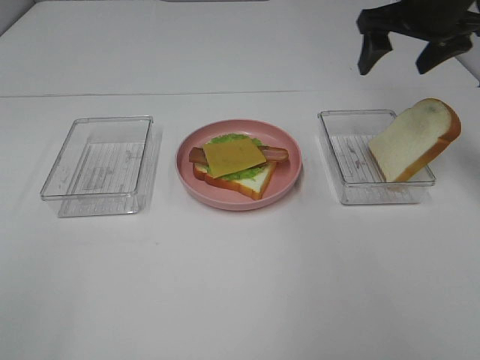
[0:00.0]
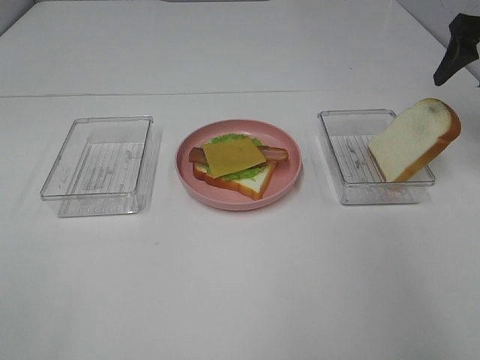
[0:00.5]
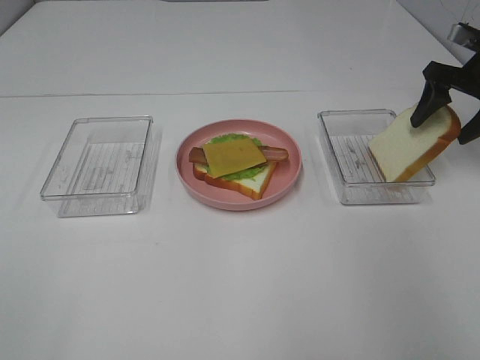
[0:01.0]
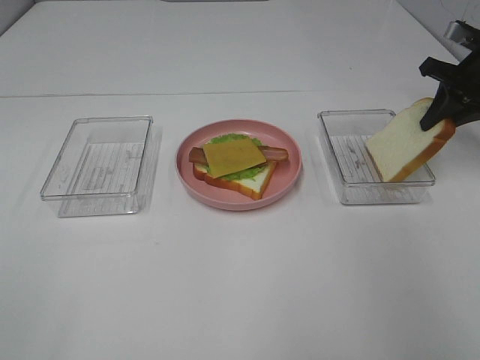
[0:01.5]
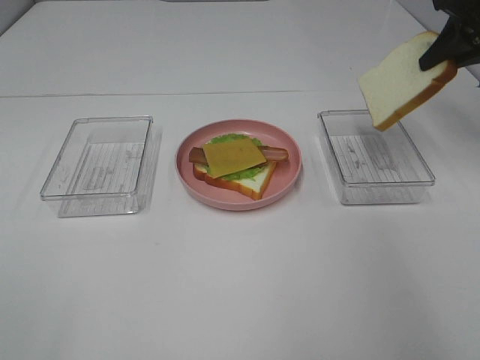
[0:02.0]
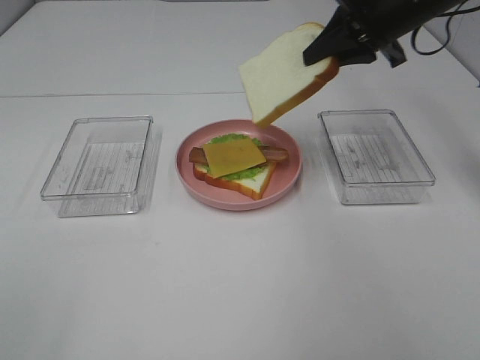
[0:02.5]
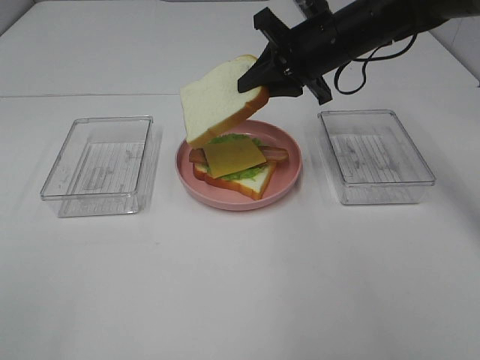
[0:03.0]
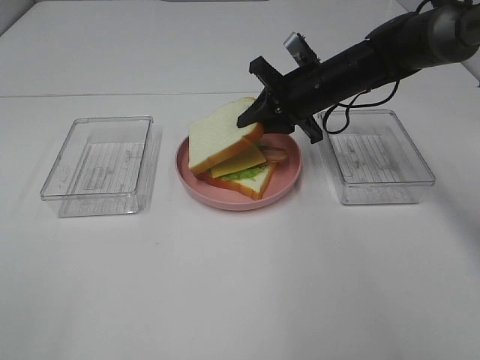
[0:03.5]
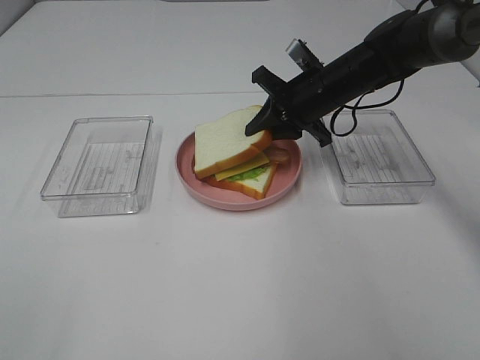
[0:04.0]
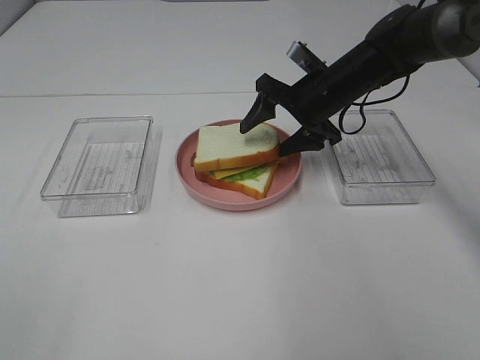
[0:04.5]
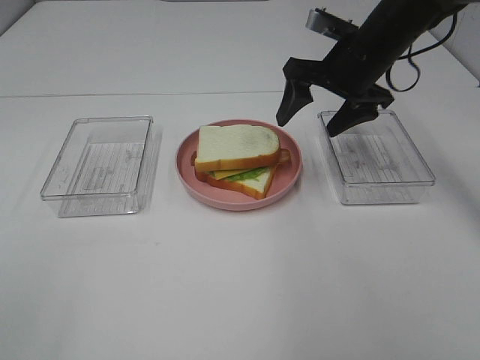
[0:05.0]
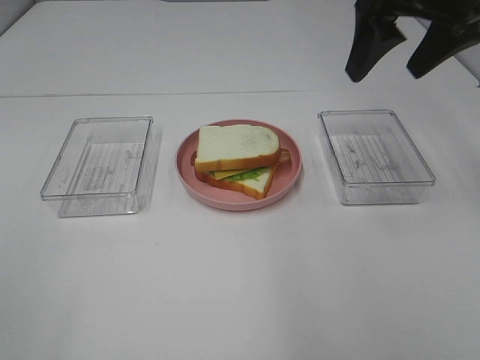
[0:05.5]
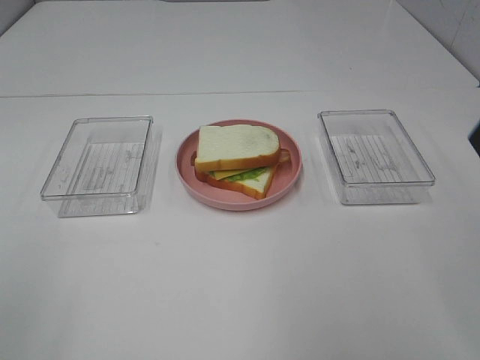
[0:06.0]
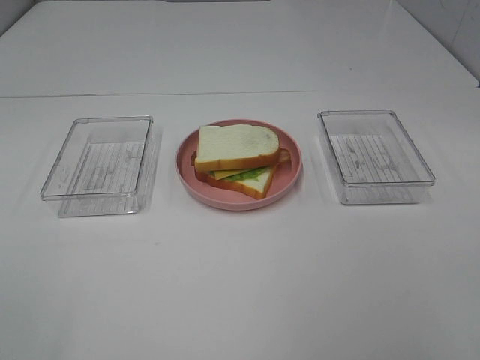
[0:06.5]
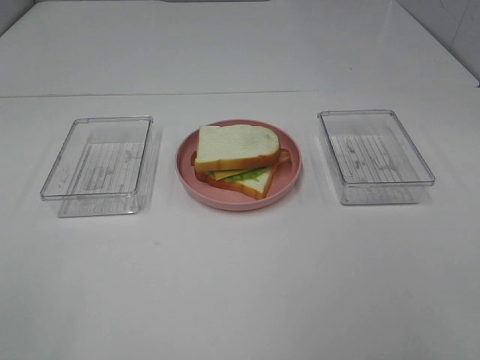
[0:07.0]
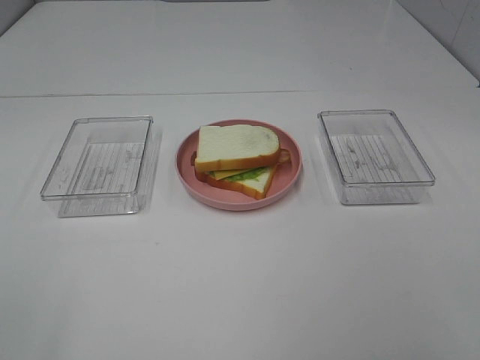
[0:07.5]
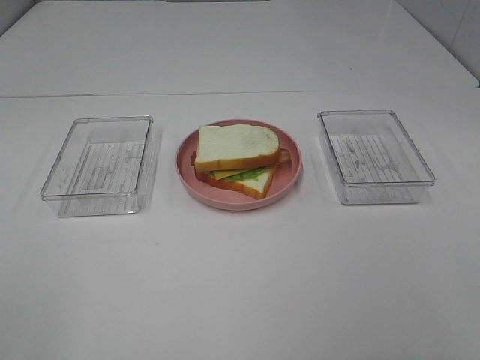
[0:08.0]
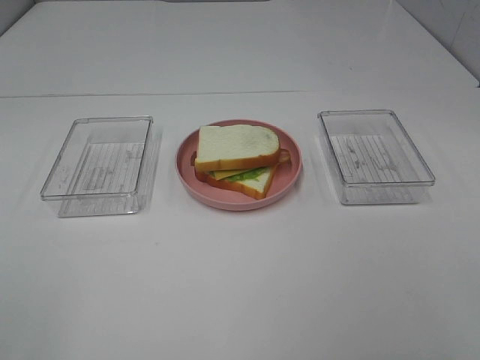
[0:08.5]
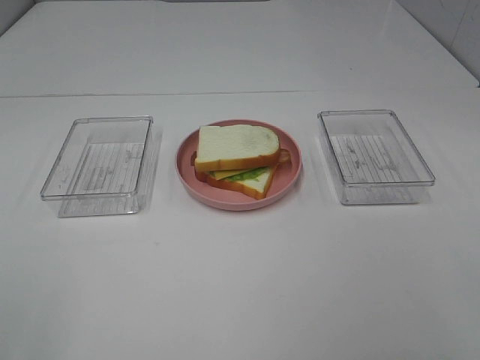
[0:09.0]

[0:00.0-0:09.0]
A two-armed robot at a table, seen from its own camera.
Task of the whole recording: Make sandwiches.
Step, 0:01.5 to 0:04.5: Right hand:place the bread slice on the cheese slice.
0:00.0 to 0:02.0: The right gripper is displaced to the right by about 10 cm, and closes up.
0:02.0 to 0:04.5: The right gripper moves to the left and downward, approximately 25 cm, and opens.
0:04.5 to 0:07.0: The right gripper goes about 40 cm backward.

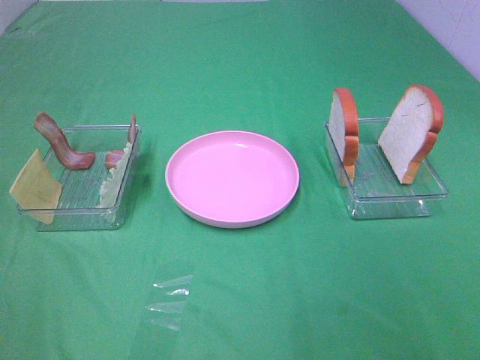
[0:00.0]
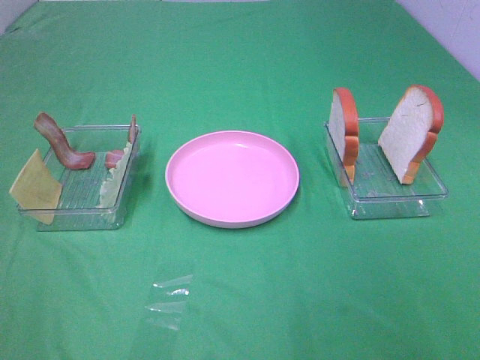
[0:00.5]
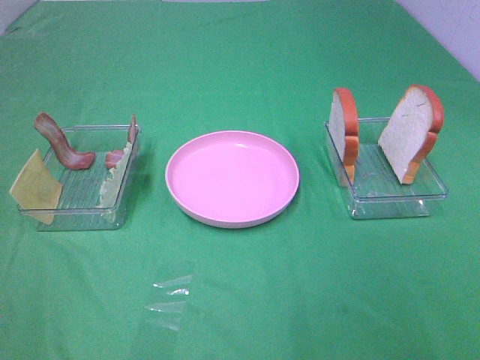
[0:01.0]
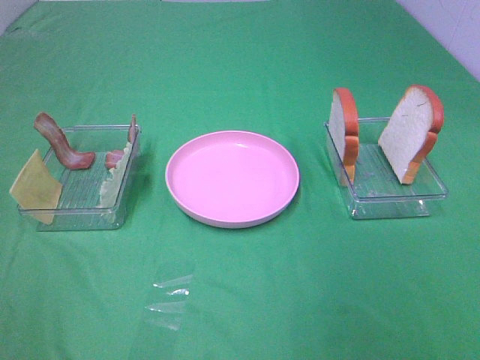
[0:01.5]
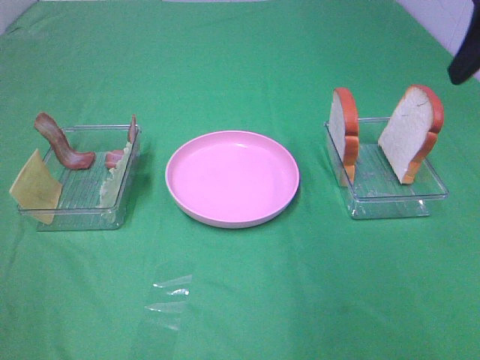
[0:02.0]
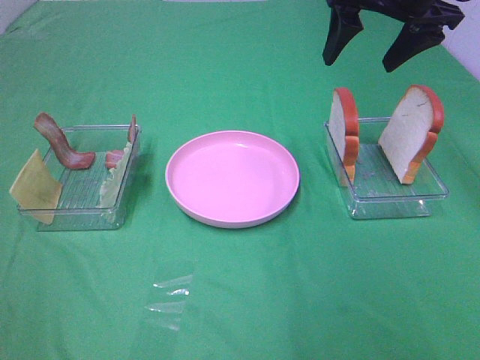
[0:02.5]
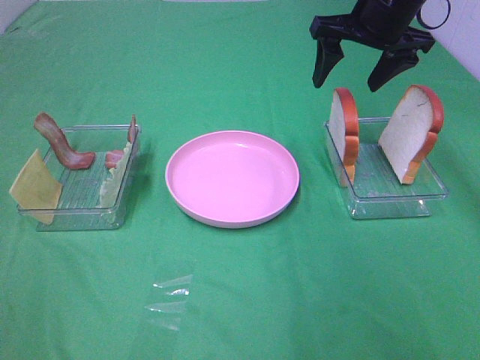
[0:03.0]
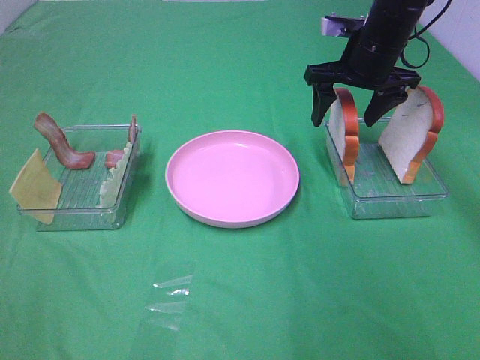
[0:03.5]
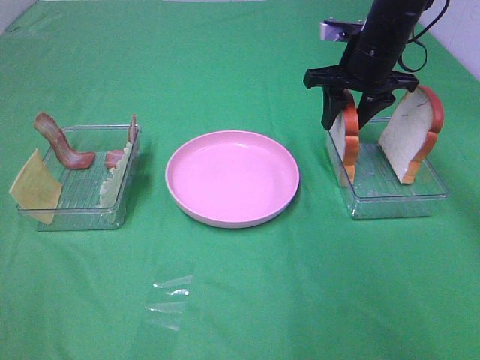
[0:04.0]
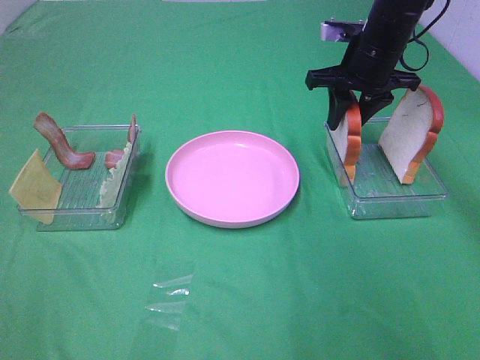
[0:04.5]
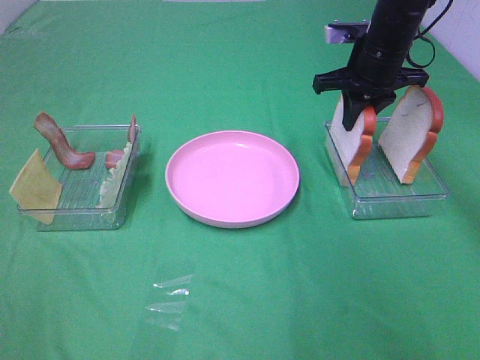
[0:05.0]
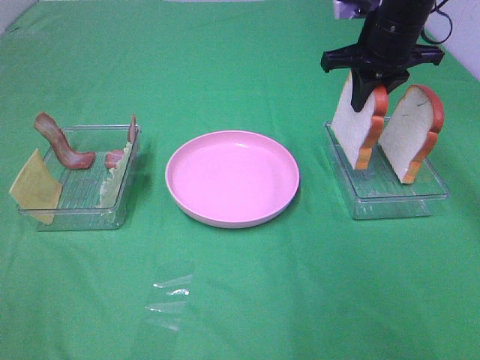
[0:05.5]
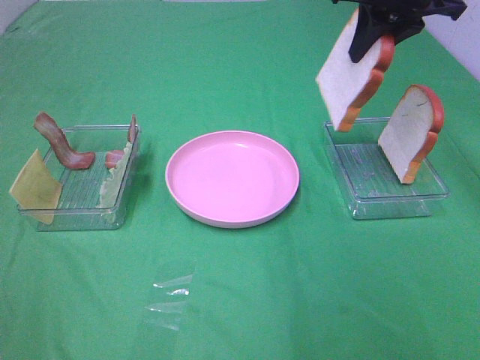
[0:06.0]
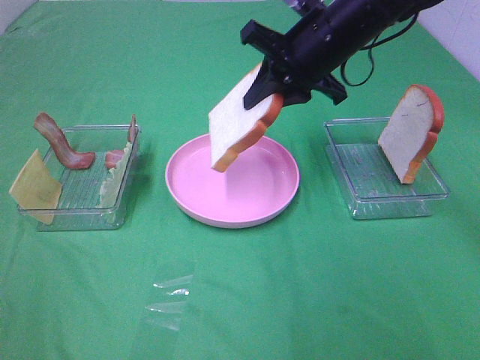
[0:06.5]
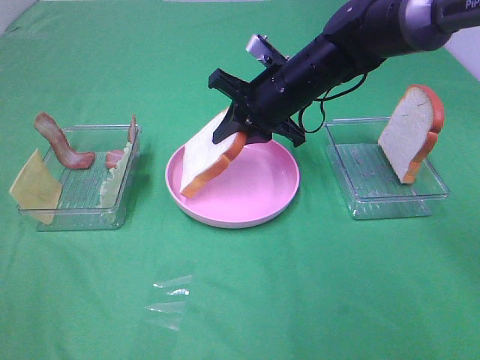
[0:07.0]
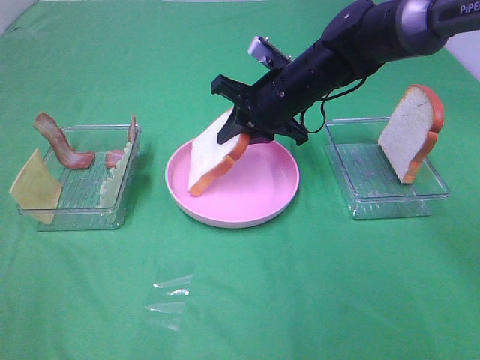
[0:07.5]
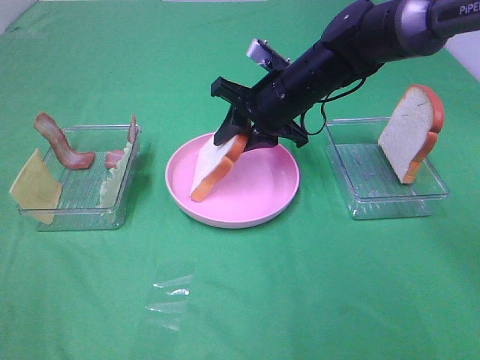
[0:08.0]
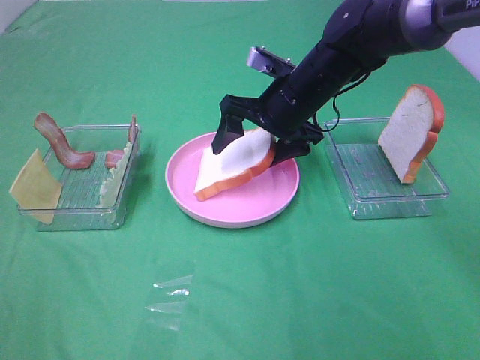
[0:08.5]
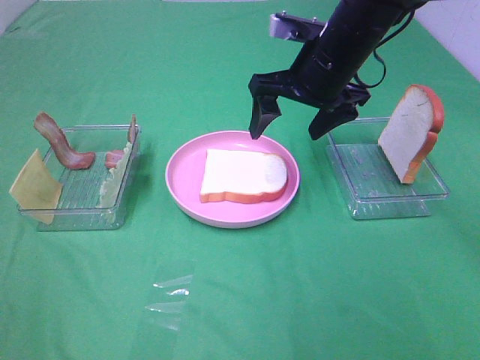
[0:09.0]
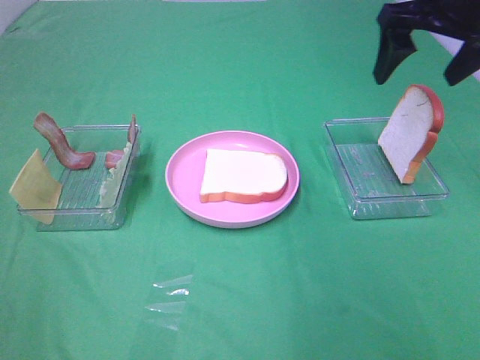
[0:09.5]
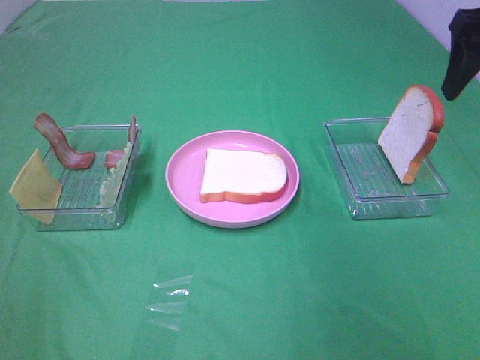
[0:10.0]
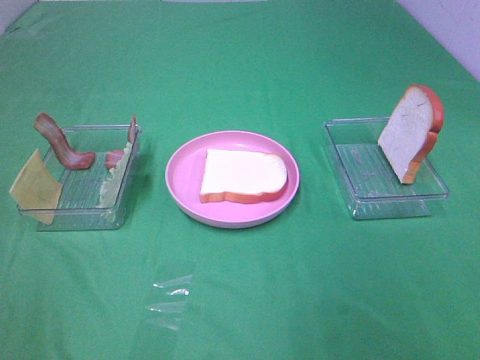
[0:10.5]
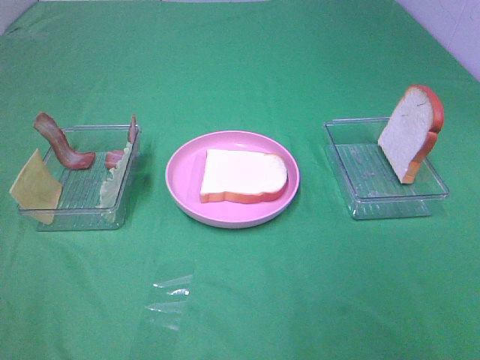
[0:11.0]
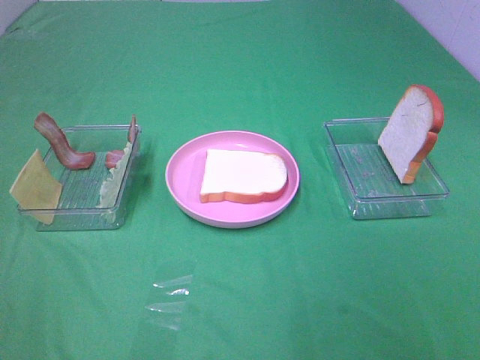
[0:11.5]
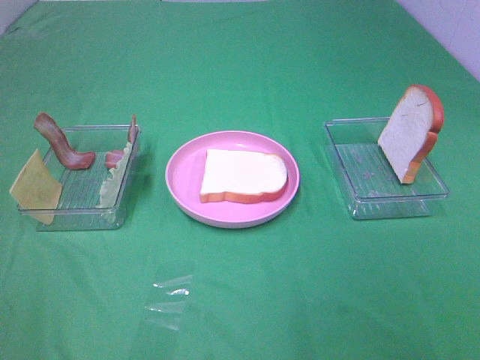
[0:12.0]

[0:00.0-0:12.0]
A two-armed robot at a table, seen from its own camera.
Task of the whole recording: Make sandwiches.
Step, 0:00.0 to 0:05.0: Right hand:grab the bread slice.
Step, 0:05.5 to 0:09.0: Right hand:place the bread slice on the plate.
0:00.0 to 0:02.0: The right gripper travels forward by some 30 cm.
0:02.0 to 0:04.0: The right gripper goes about 25 cm forward, downward and to the left, and closes up.
0:04.0 to 0:06.0: The right gripper travels upward and backward by approximately 15 cm, and closes its fingers.
0:06.0 to 0:08.0: The right gripper shifts some 20 cm downward and to the left.
0:08.0 to 0:10.0: The right gripper shifts some 30 cm to the right, upward and backward, and opens.
0:10.0 to 0:12.0: The right gripper shifts some 35 cm backward.

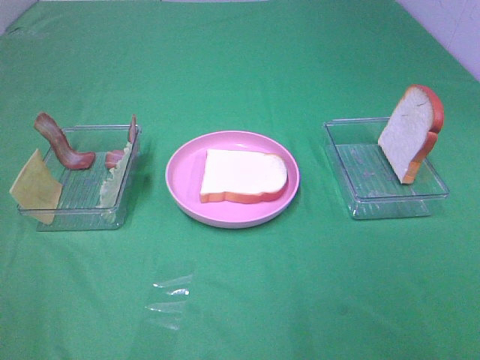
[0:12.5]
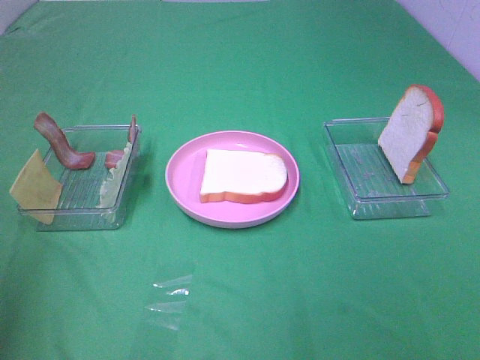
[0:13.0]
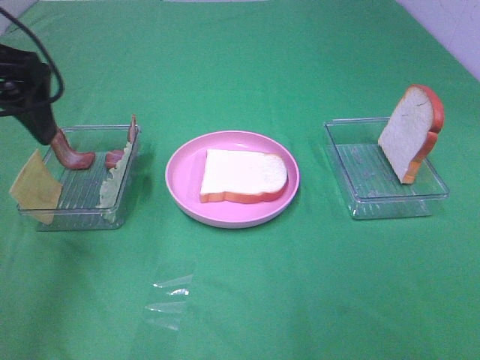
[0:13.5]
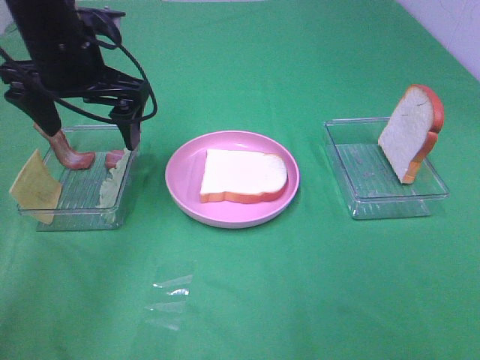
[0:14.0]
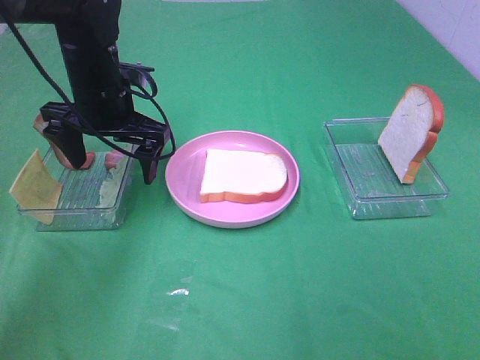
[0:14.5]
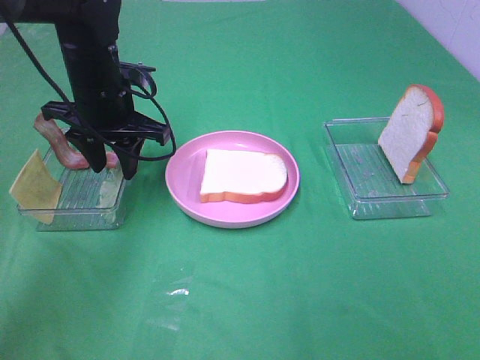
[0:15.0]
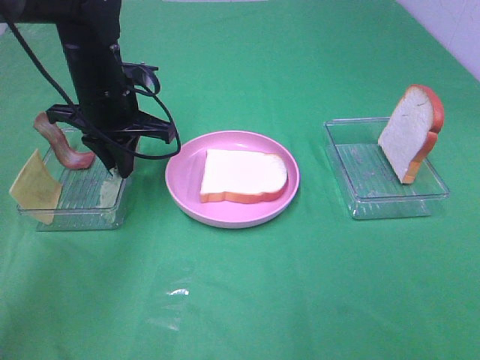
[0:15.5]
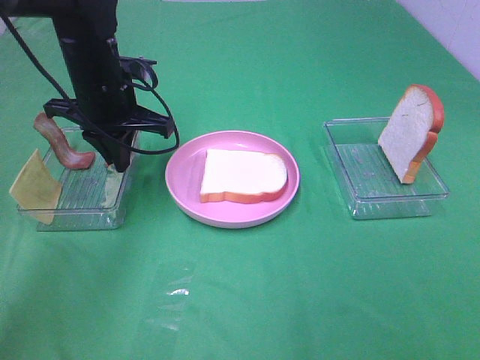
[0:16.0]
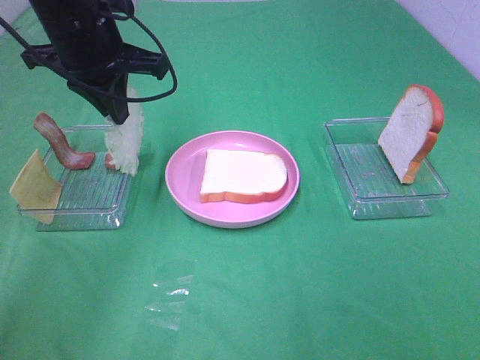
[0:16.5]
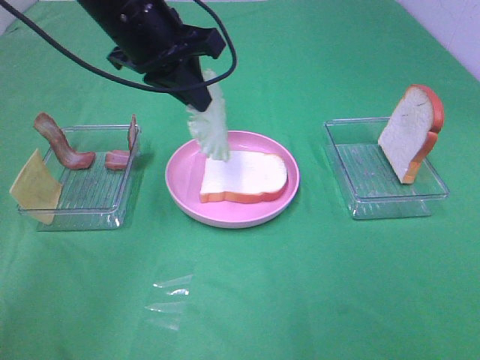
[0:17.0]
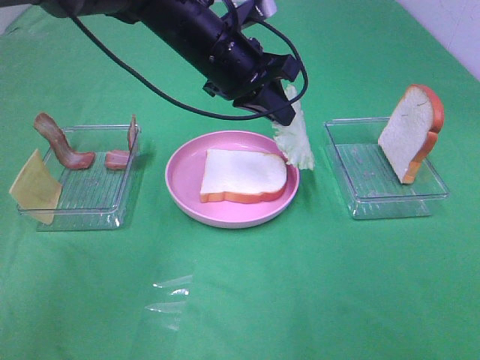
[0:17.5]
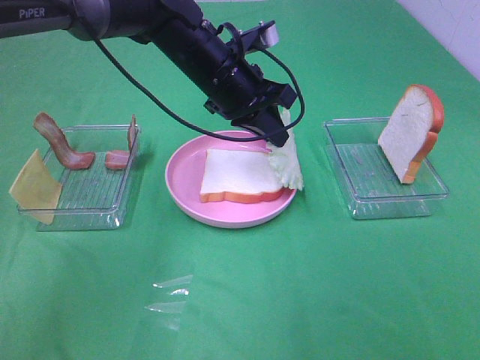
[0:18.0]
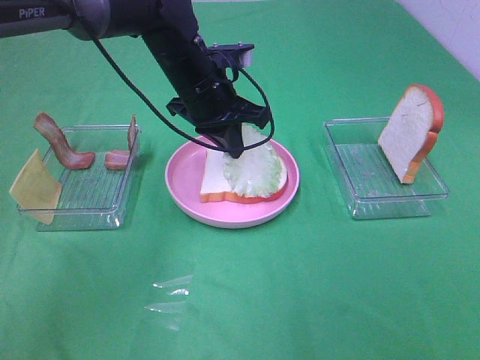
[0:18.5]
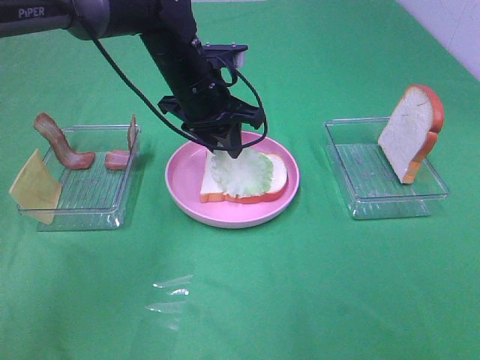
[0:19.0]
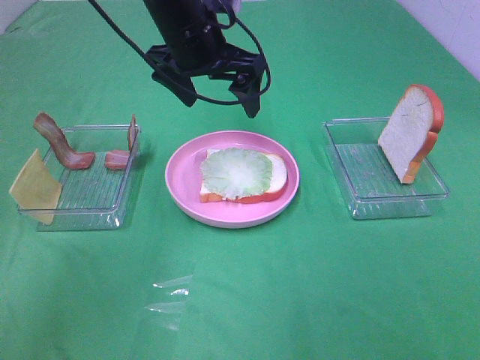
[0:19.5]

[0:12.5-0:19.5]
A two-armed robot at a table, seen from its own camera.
Task of the whole recording: Make sandwiches.
Step, 0:12.5 to 0:16.0: Left hand:grab the lettuce slice.
Step, 0:16.5 to 0:19.0: Left hand:place the lettuce slice on the bread slice.
0:12.5 to 0:14.5: The left gripper moves forward and to the right, roughly 40 cm.
0:14.5 to 0:16.0: The left gripper closes.
0:16.0 to 0:17.5: The left gripper goes roughly 15 cm to the right.
0:17.5 to 0:19.5: The left gripper opens its fingers.
